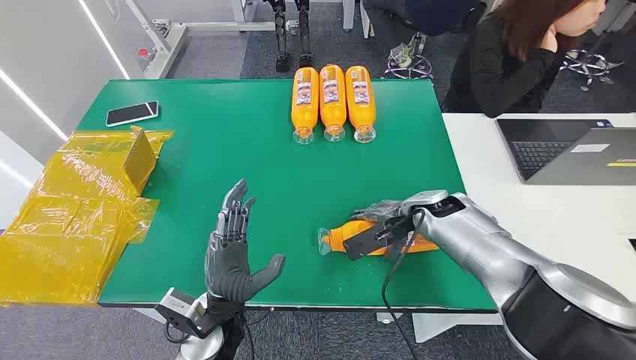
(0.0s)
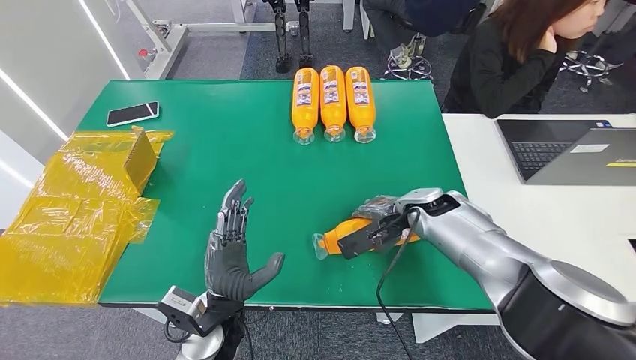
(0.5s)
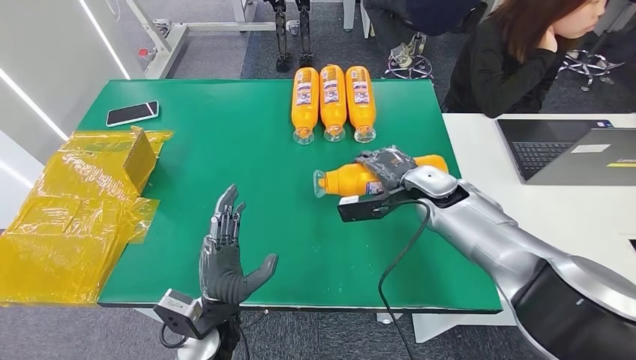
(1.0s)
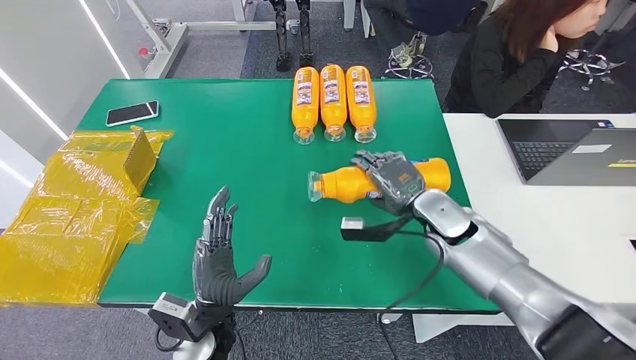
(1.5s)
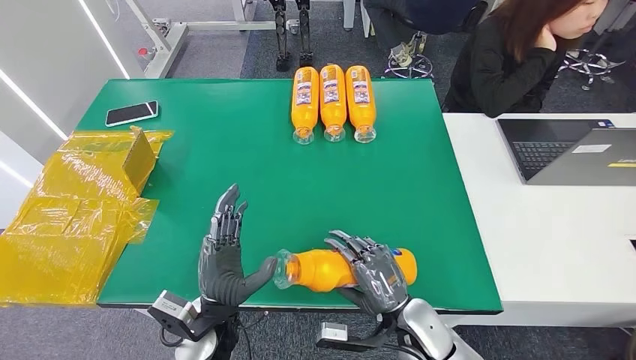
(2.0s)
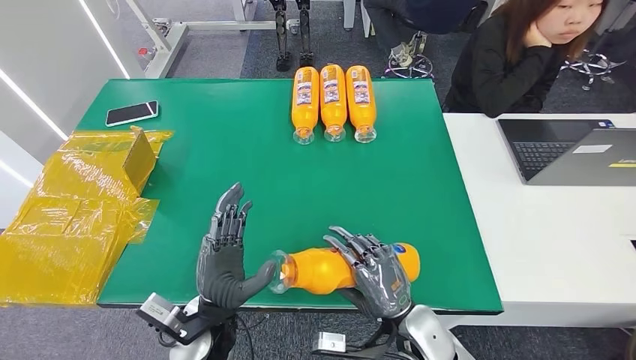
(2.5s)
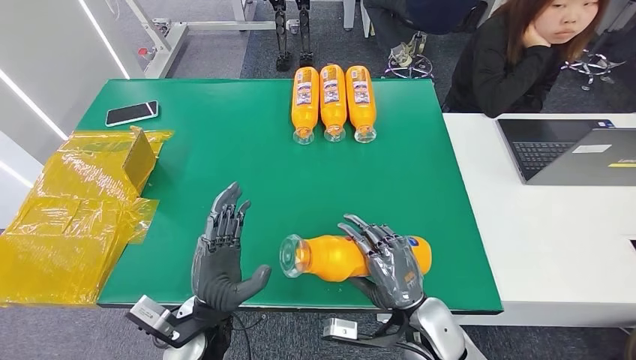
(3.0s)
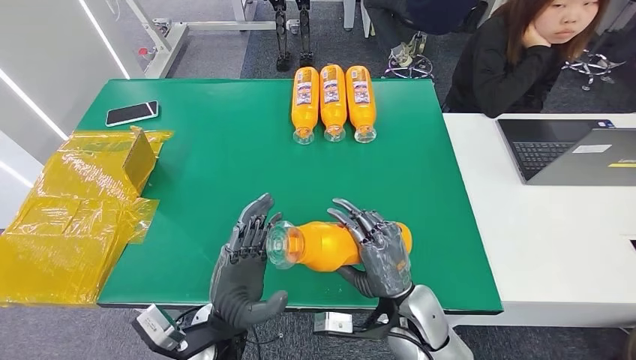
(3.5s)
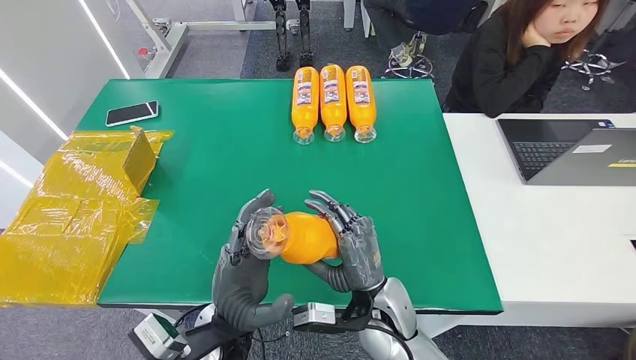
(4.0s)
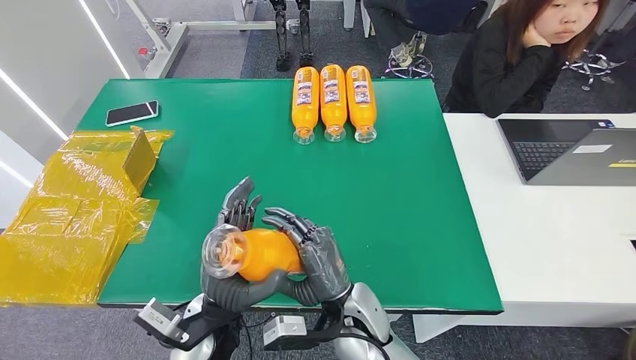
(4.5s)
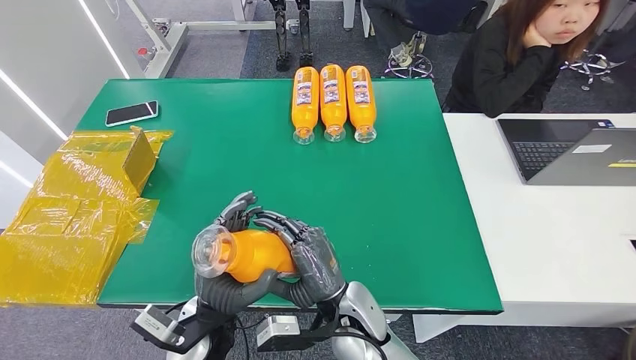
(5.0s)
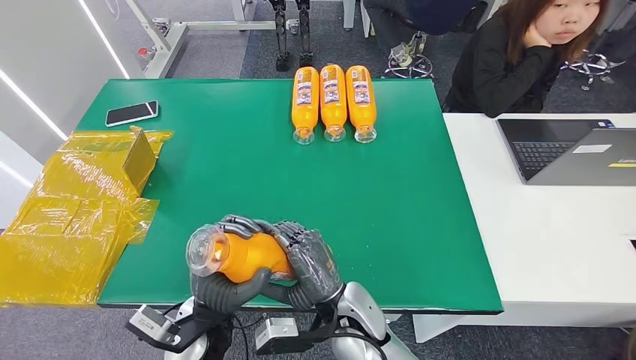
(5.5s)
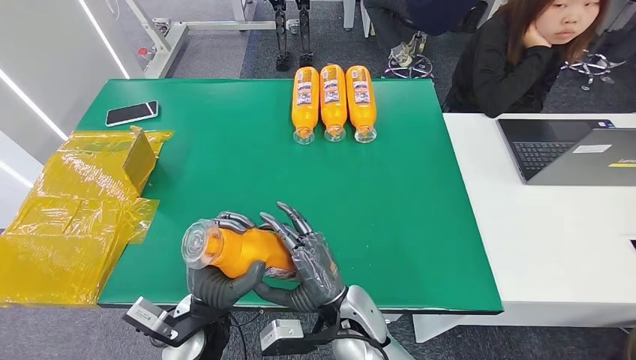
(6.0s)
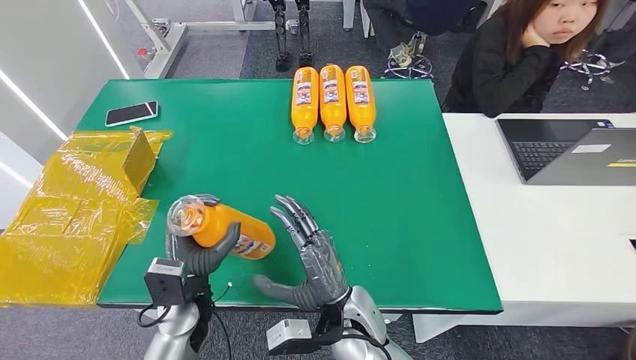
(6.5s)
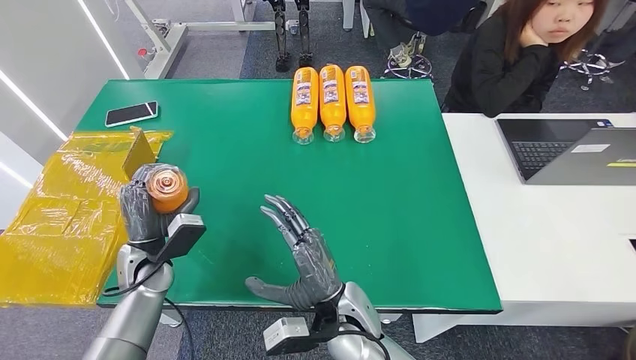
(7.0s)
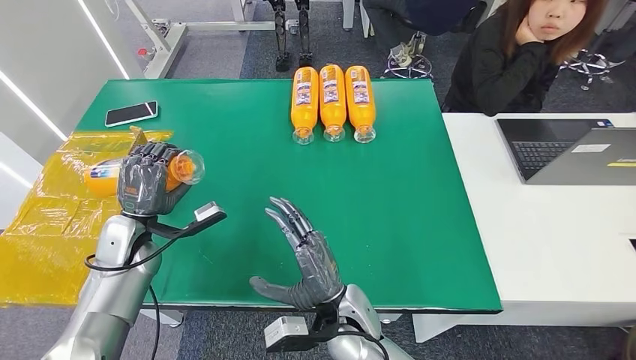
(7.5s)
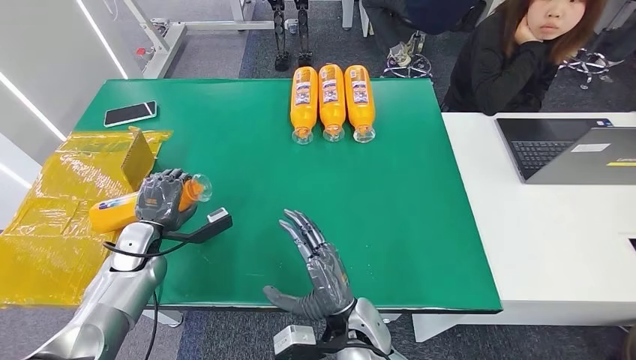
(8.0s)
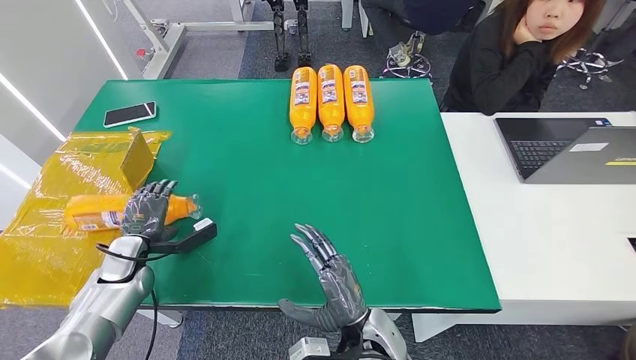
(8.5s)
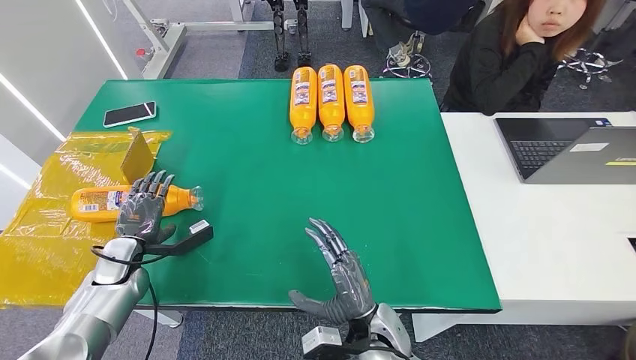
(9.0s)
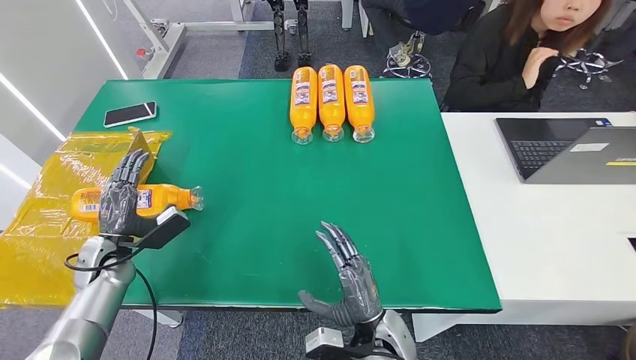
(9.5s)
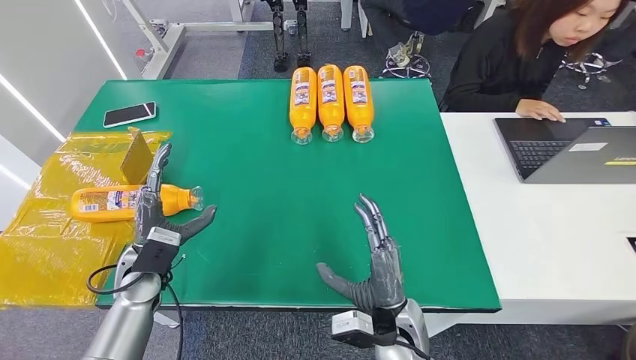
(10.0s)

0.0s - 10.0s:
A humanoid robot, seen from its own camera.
Step, 0.0s - 3.0s: Pick up the bottle from the table.
Step, 3.5s - 10.0s: Turn the bottle to the front side.
2.0s - 4.0s: The right hand goes roughly 10 cm to the left.
4.0s - 6.0s: The right hand ends up some 5 cm from where it was. The left hand changes place by some 5 cm.
6.0s - 8.0s: The left hand goes roughly 25 cm to the left and forward.
8.0s - 10.0s: The hands both shift to the right by approximately 5 cm.
